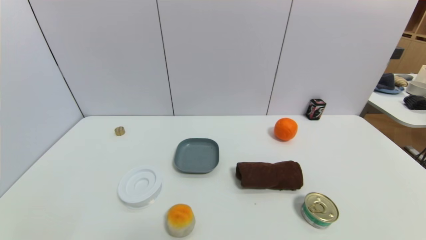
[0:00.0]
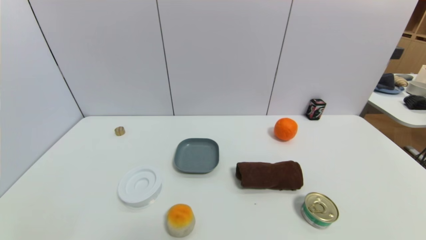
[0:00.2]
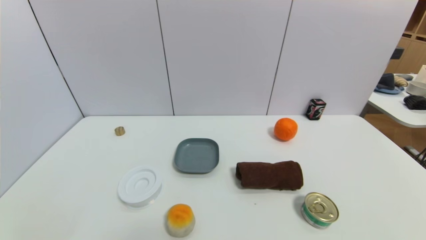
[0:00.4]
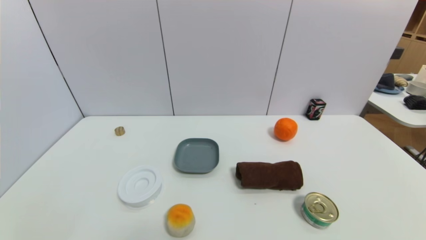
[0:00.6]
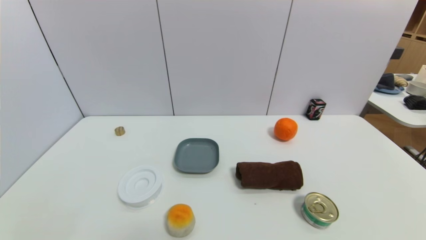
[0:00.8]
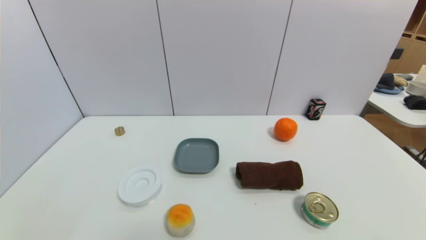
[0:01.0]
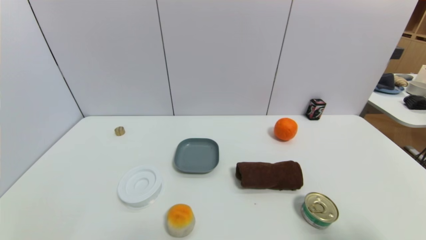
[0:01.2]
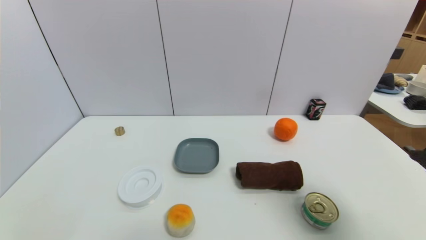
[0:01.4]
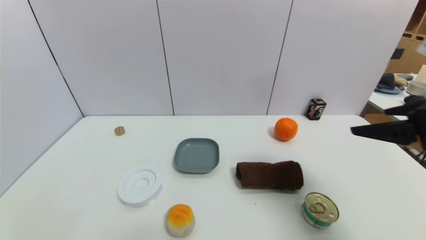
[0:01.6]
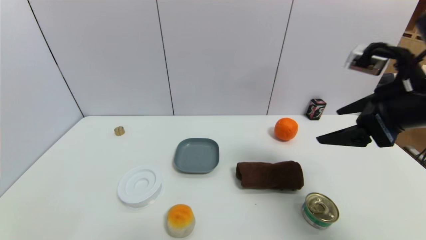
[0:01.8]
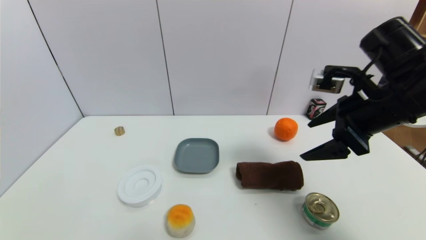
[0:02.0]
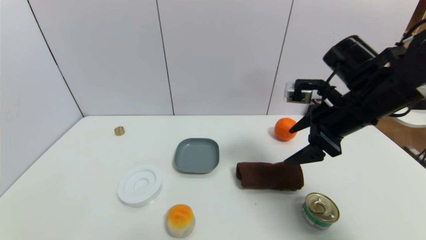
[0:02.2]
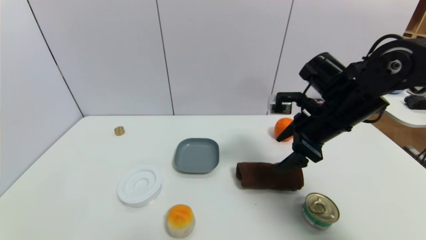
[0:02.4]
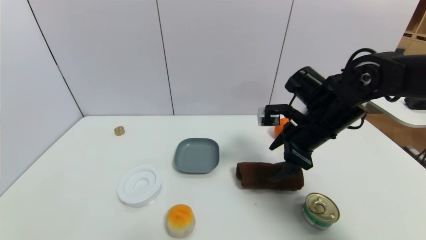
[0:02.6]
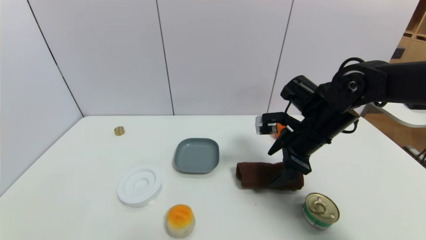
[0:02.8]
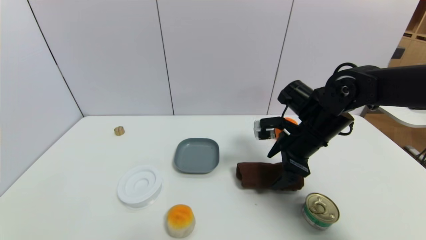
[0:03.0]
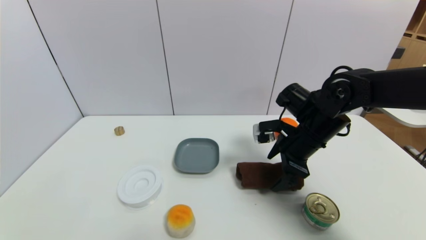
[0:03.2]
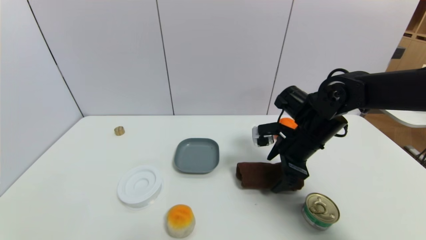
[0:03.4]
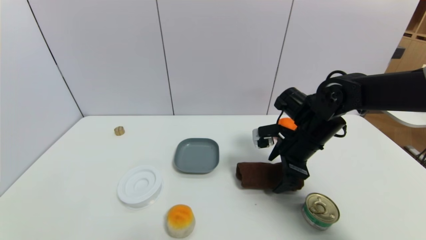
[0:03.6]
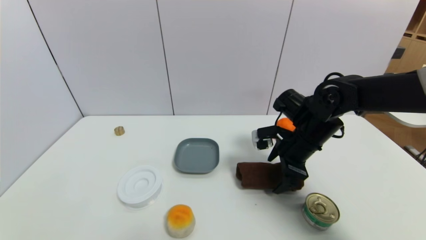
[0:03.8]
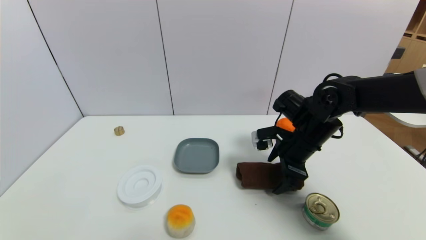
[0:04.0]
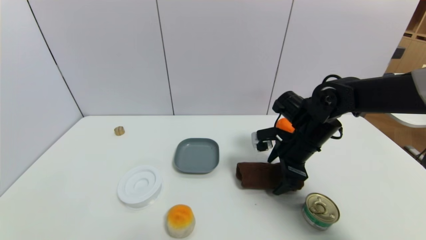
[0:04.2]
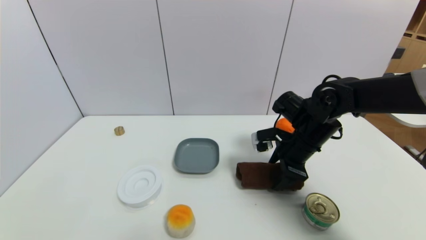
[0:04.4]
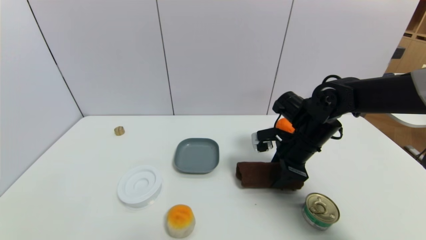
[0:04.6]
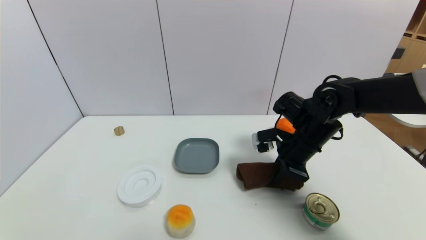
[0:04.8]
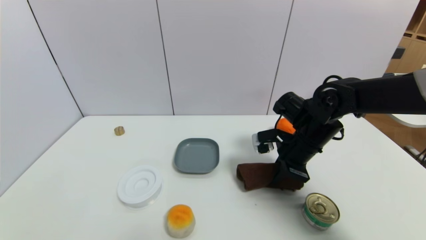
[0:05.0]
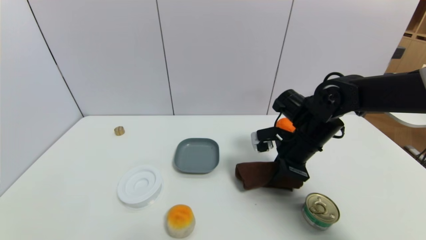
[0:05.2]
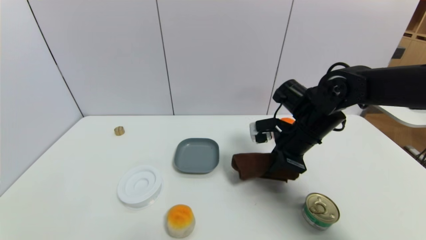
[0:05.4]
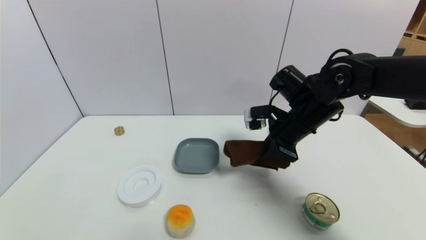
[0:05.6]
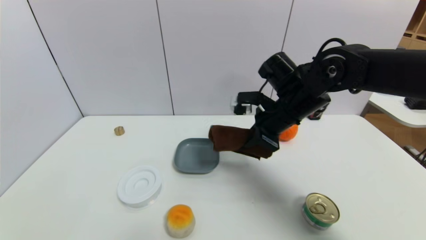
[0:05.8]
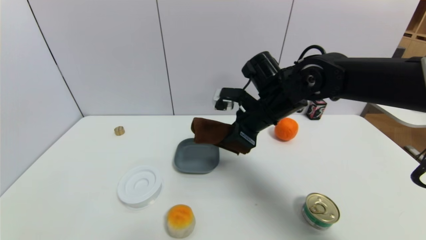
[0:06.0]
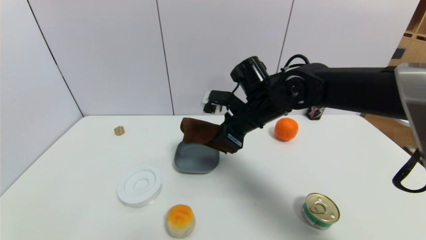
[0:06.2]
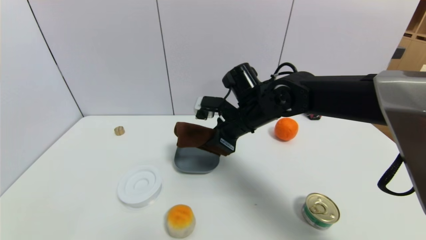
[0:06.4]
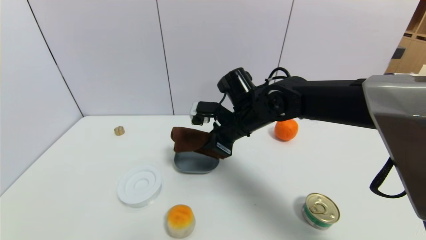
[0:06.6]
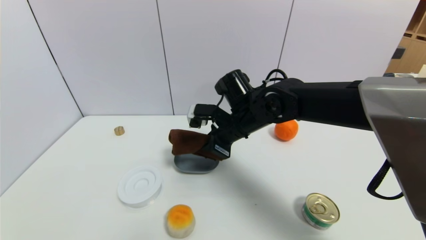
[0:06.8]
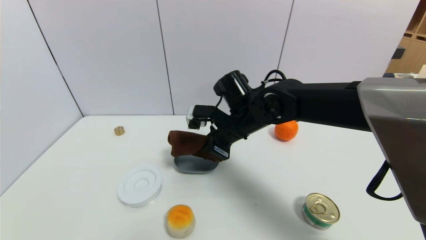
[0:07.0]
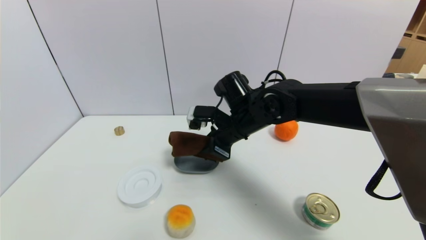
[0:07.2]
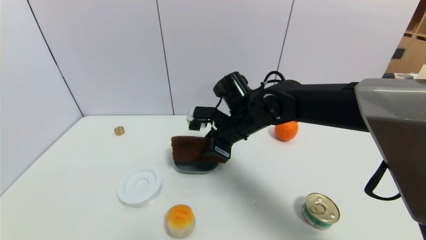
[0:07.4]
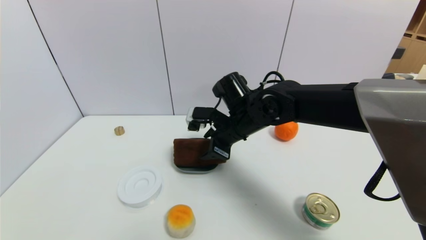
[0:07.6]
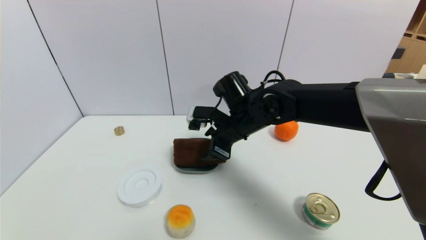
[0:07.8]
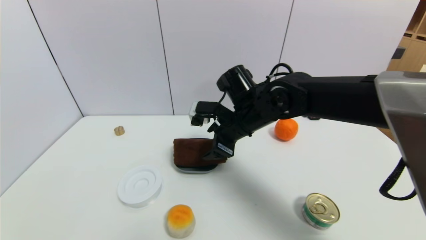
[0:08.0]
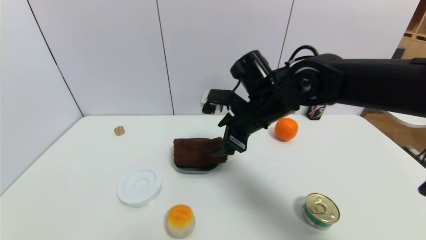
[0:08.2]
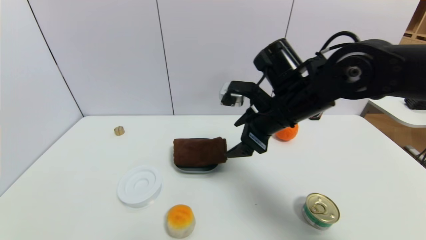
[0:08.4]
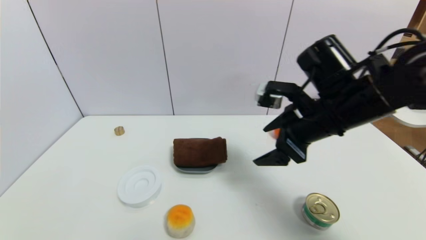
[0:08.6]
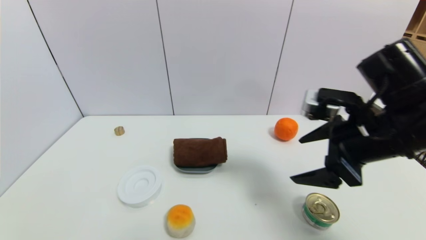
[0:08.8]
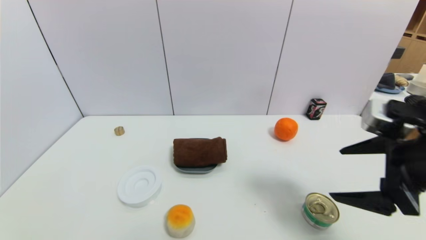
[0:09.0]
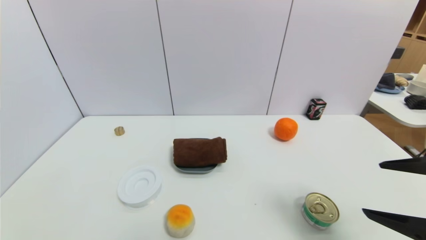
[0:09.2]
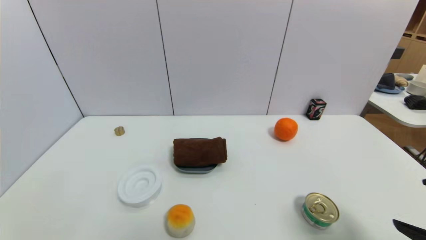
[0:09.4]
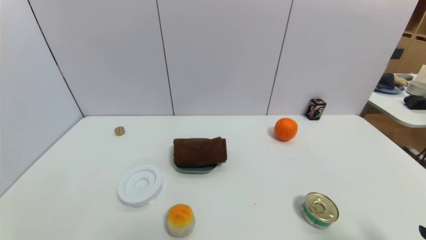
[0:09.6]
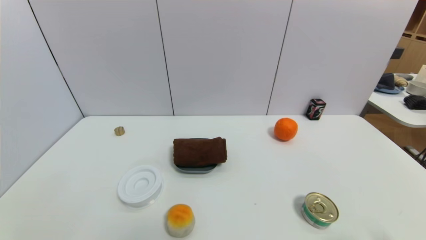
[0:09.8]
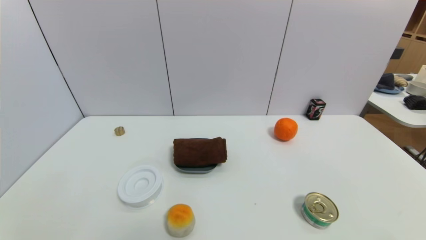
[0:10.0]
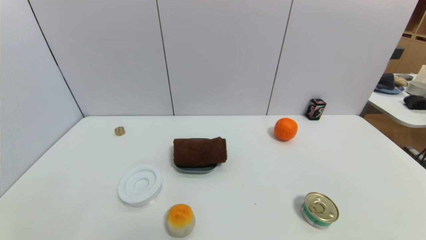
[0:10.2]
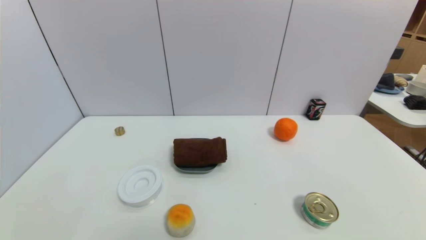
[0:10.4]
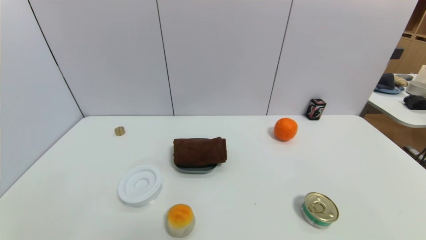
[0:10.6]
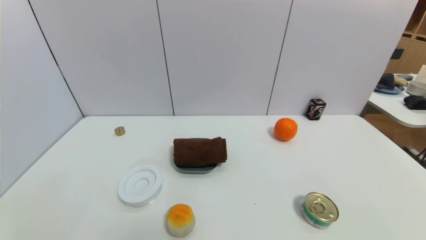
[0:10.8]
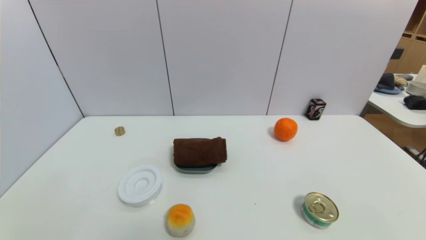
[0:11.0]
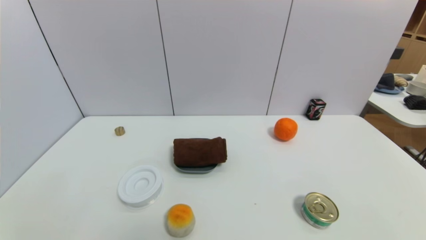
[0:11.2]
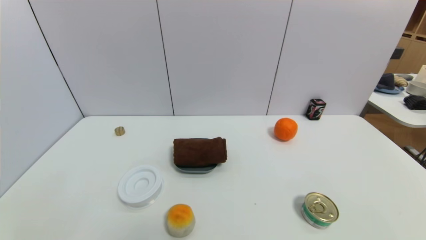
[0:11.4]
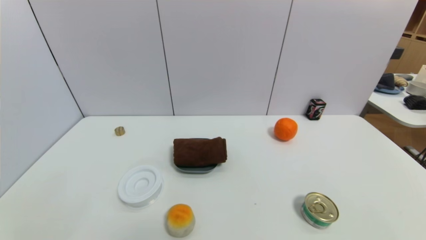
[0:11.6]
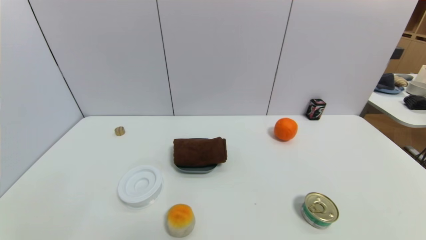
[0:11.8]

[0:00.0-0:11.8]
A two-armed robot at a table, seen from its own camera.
Task of the whole recording: use a gripper to pick the target object and place on the dish.
Step, 0:00.0 to 0:04.8: Grasp the brown towel with the right gripper.
Step, 0:05.0 to 0:08.4: Place the brown towel on the dish with the right gripper.
0:00.0 to 0:01.4: The right gripper is displaced upward and forward by some 25 cm.
0:01.4 to 0:03.0: The right gripper goes approximately 30 cm forward, to the left and downward.
0:03.0 to 0:04.4: The grippers stay close to where they were, moving slightly.
0:04.4 to 0:06.0: The right gripper shifts approximately 10 cm to the left and upward, and closes its fingers.
0:06.0 to 0:07.4: The right gripper is displaced to the left by about 5 cm, and opens up.
0:07.4 to 0:08.8: The right gripper heads to the right, backward and upward, covering roughly 25 cm, and opens its fingers.
0:08.8 to 0:10.4: The right gripper heads backward, downward and to the right, covering roughly 30 cm.

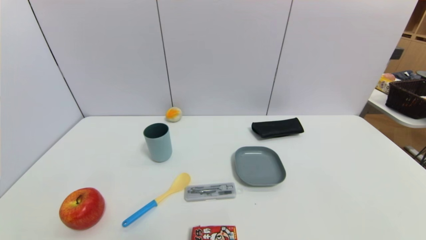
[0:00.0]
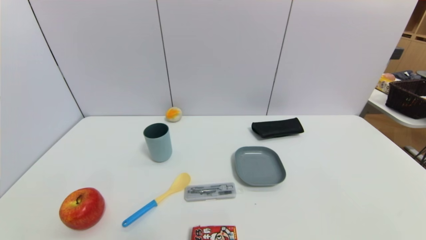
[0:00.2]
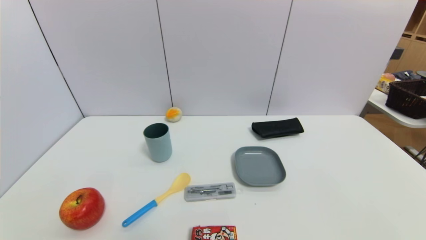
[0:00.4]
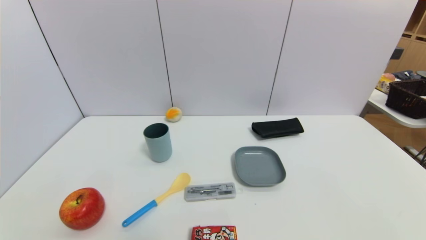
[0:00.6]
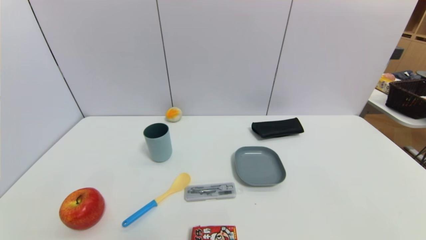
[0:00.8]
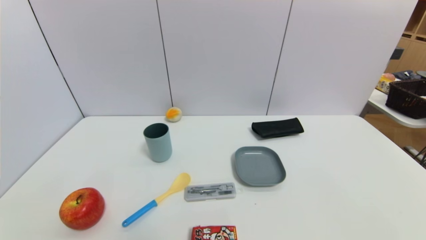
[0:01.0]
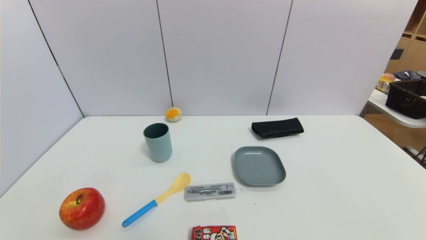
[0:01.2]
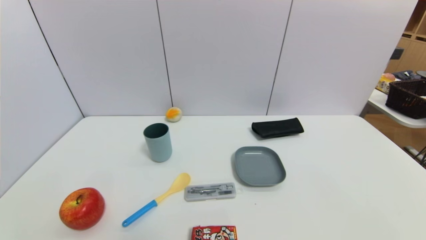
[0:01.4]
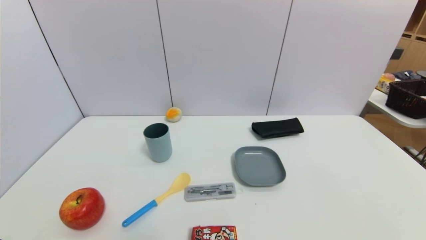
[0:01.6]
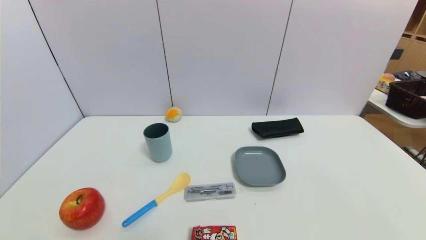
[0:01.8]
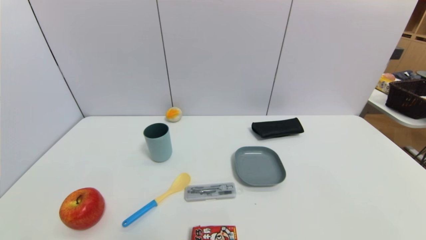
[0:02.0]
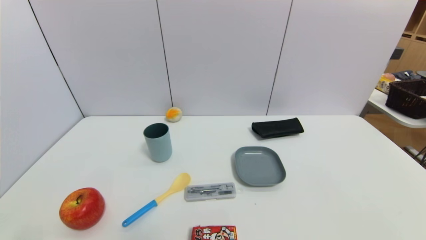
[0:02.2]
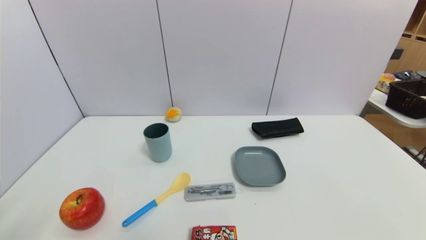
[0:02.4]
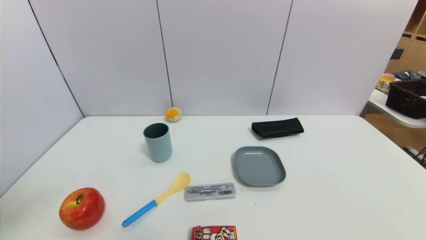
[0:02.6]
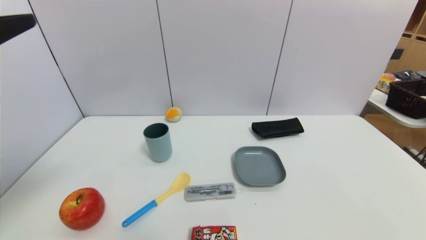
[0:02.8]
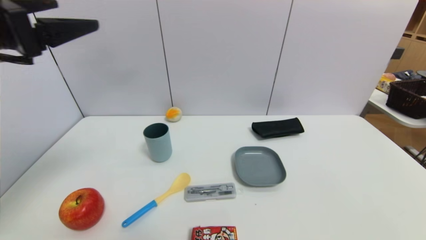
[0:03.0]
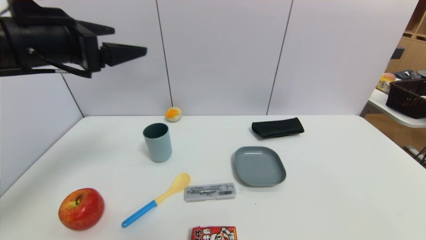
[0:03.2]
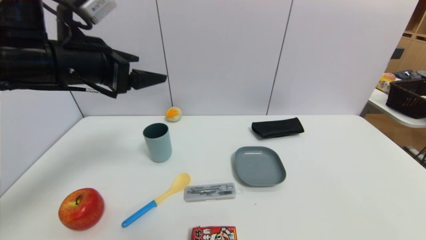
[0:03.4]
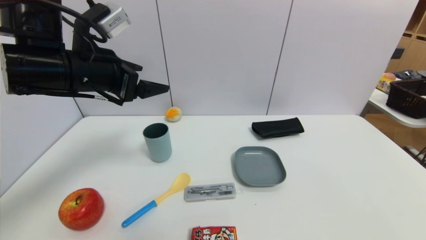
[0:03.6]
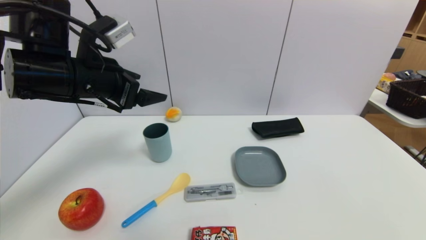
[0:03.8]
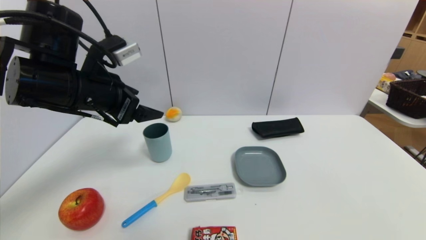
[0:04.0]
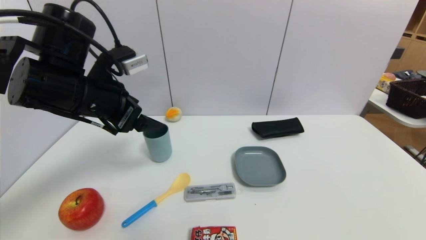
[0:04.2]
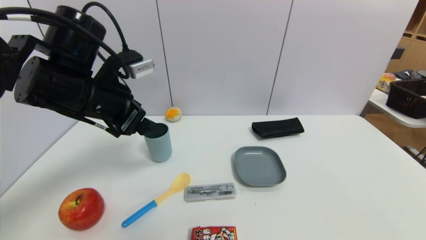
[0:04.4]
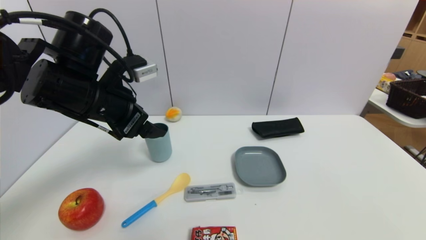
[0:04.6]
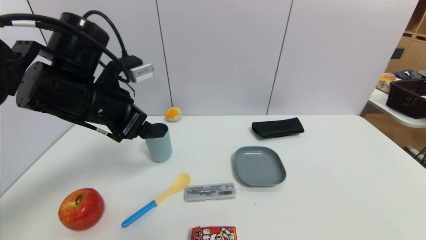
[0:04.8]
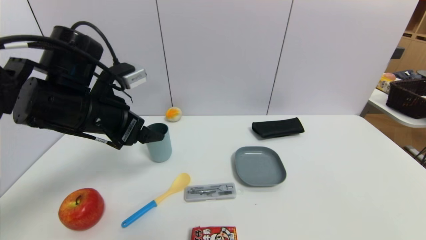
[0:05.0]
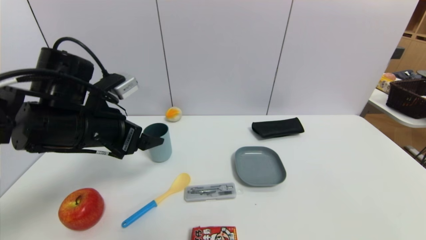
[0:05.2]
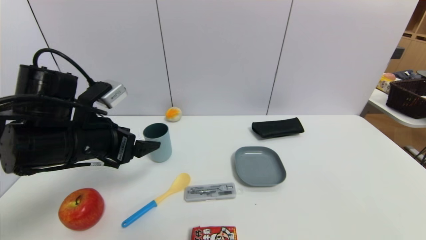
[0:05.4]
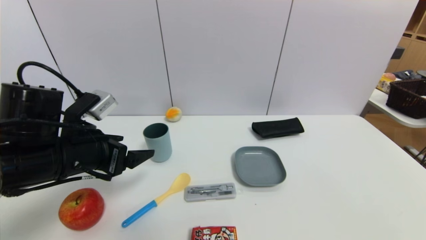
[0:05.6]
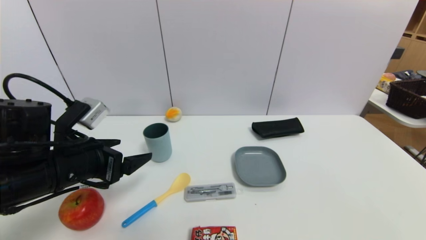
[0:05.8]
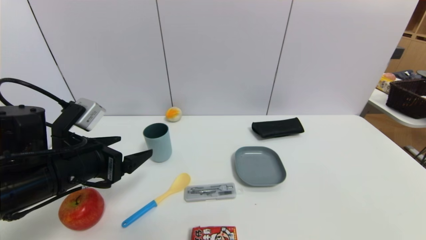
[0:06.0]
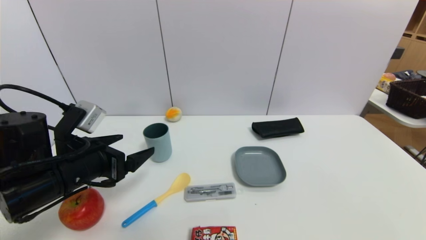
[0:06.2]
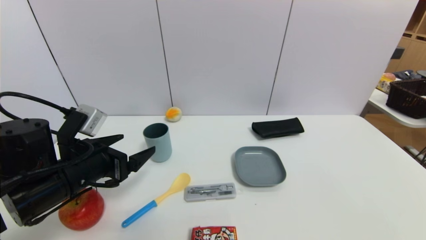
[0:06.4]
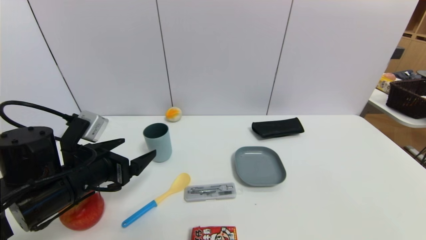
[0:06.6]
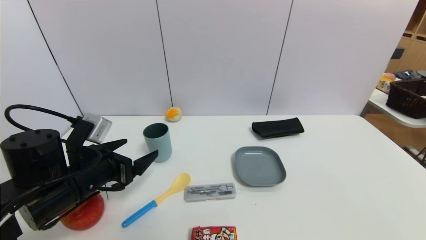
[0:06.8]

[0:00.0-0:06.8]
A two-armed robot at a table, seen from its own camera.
Task of the whole recording: use a gripper to pick the target object and place on the dish.
0:01.4 to 0:02.8: The left gripper shifts roughly 30 cm upward and forward.
0:02.8 to 0:04.0: The left gripper is displaced forward, to the right and downward by approximately 15 cm.
0:04.0 to 0:05.4: The left gripper shifts approximately 5 cm downward.
0:05.4 to 0:06.8: The left gripper travels downward by some 5 cm.
